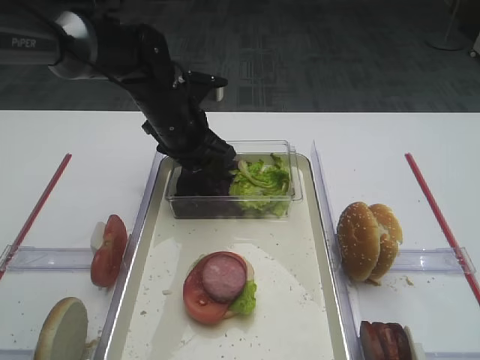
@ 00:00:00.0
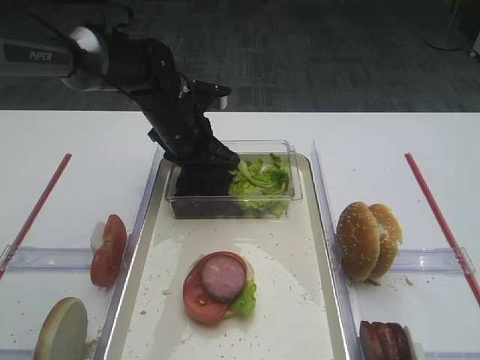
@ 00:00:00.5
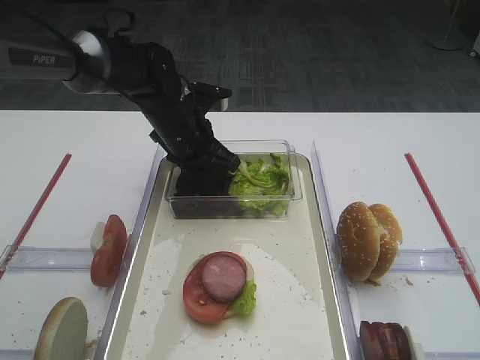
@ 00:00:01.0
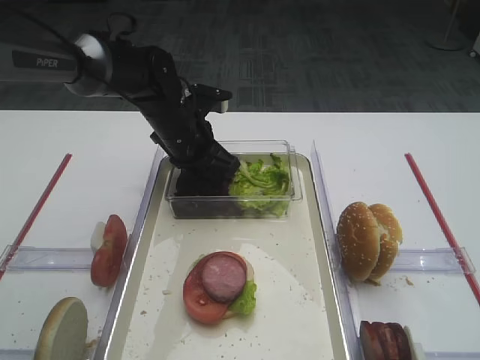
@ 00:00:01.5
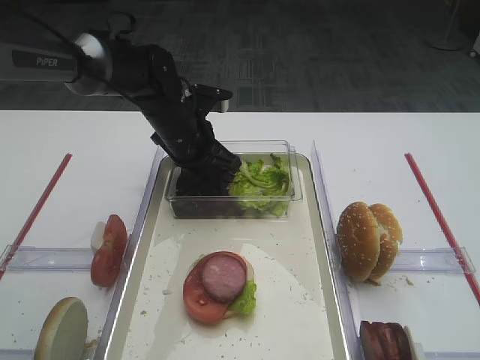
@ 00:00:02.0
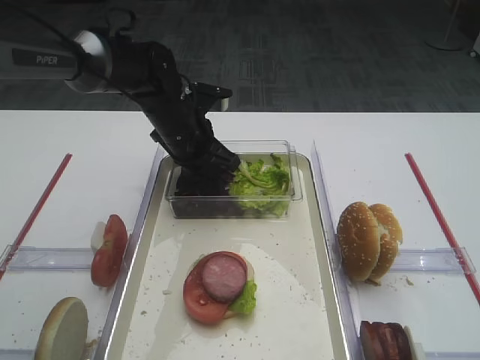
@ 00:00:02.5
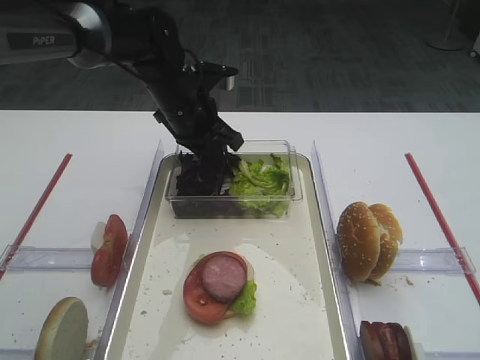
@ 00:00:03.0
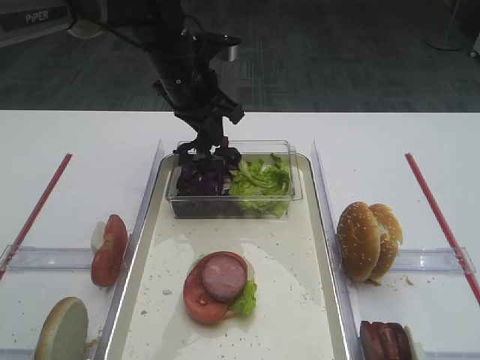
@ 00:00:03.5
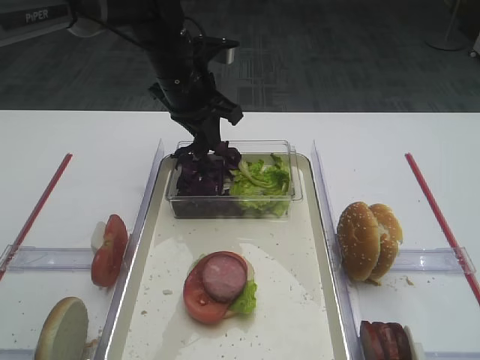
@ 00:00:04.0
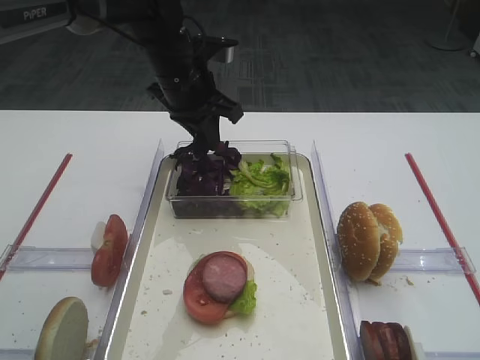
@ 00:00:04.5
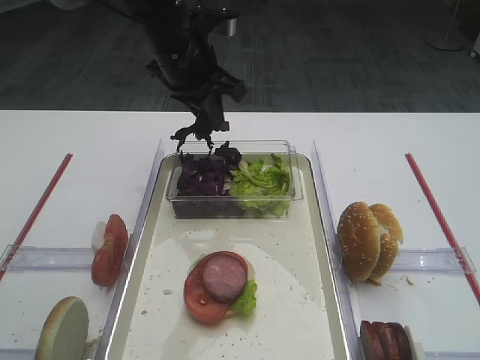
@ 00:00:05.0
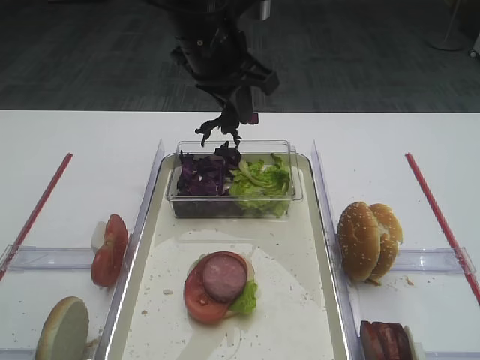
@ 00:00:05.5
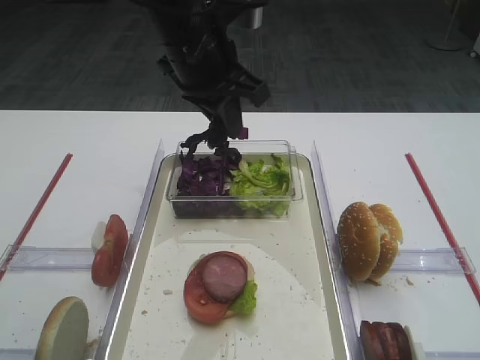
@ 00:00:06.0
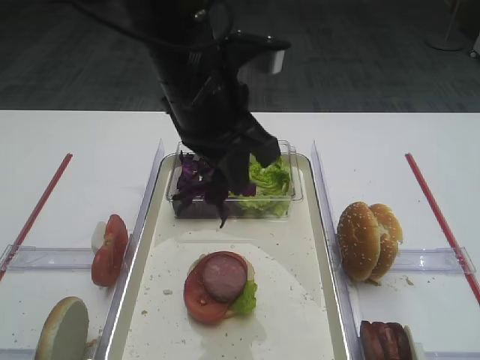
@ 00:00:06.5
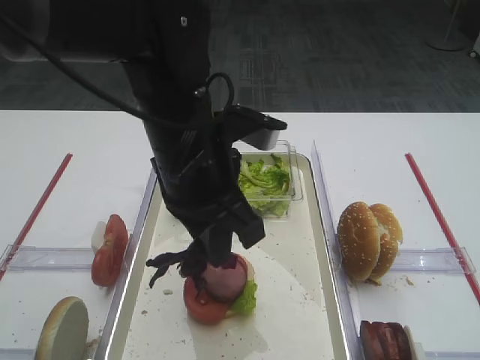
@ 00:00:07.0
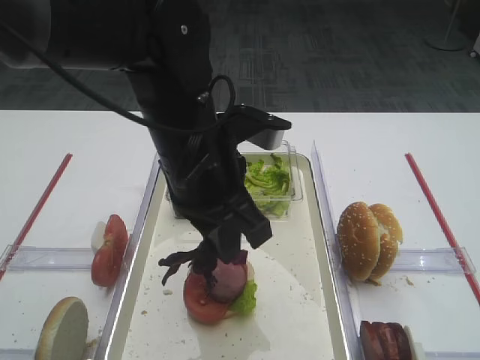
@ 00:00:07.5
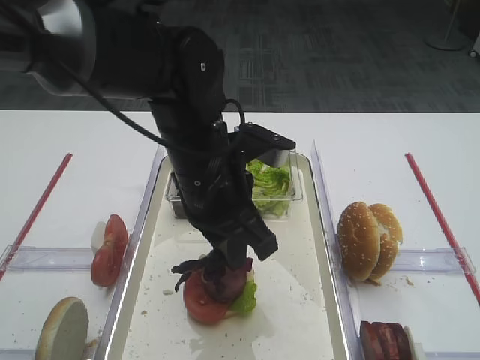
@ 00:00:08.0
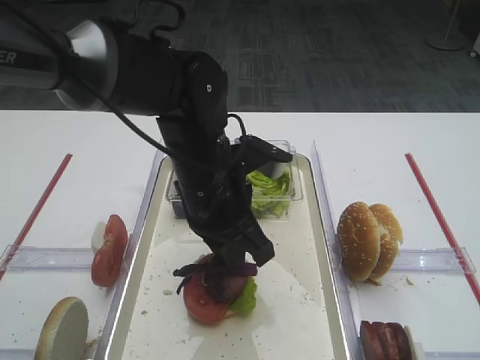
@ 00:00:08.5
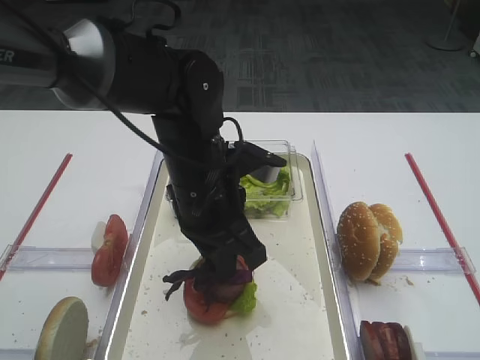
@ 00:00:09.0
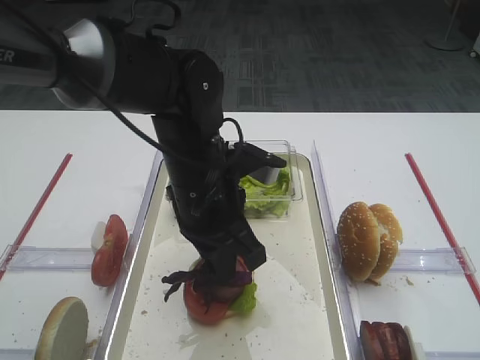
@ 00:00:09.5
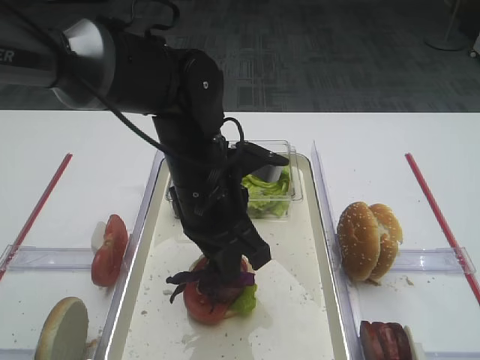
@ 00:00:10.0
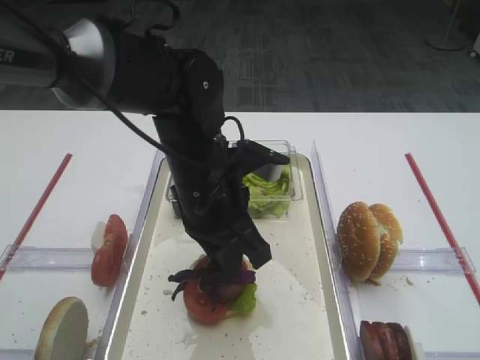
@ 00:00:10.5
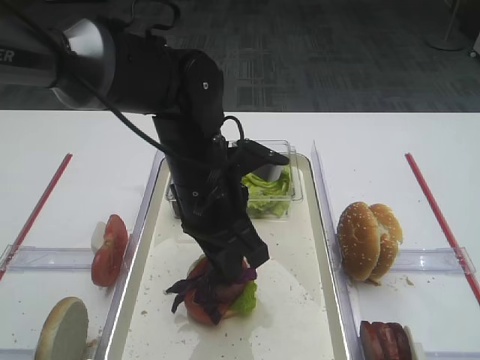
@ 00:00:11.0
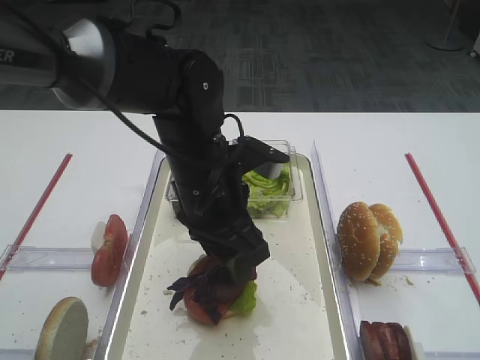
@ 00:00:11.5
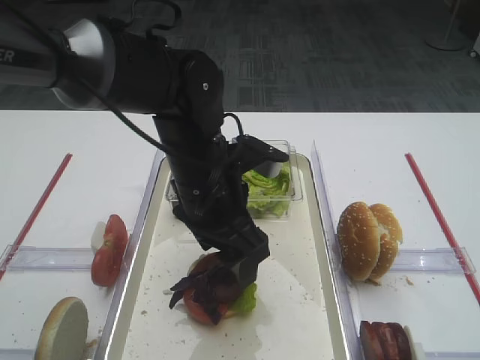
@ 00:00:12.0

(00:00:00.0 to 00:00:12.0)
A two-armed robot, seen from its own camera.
Step, 00:00:00.0 - 00:00:03.5: Pick up the purple cabbage with the left gripper.
00:00:00.0 - 00:00:02.0: The left gripper closes.
00:00:02.0 - 00:00:04.0: The left gripper heads upward, covering roughly 10 cm.
00:00:04.0 - 00:00:06.0: The left gripper heads backward and upward, covering approximately 10 cm.
00:00:06.0 - 00:00:08.0: The left gripper is displaced backward and downward by some 15 cm.
00:00:08.0 - 00:00:10.0: The grippers stay close to where they were, moving slightly.
00:00:10.0 - 00:00:12.0: The left gripper opens.

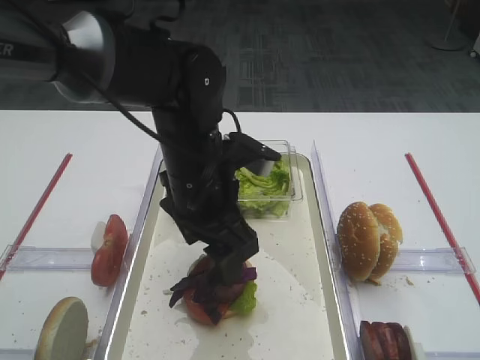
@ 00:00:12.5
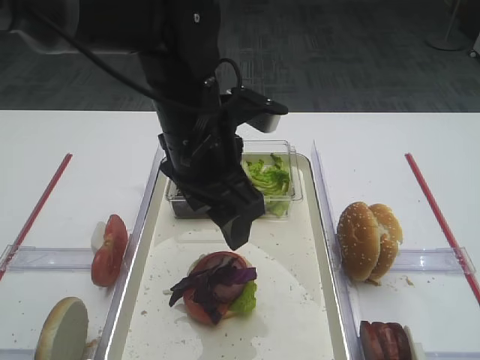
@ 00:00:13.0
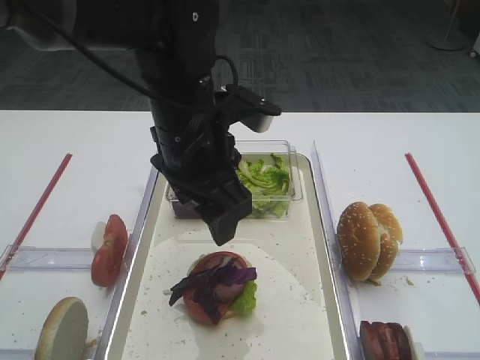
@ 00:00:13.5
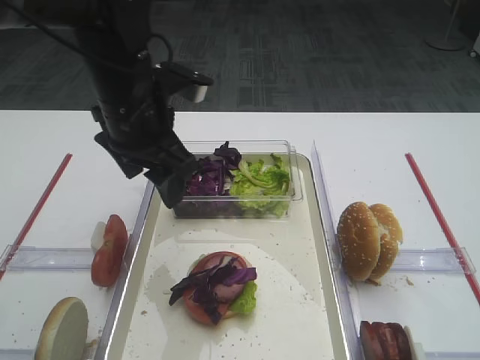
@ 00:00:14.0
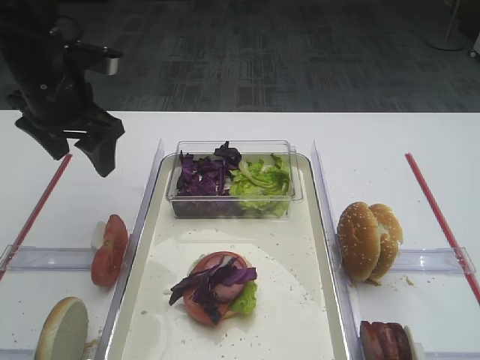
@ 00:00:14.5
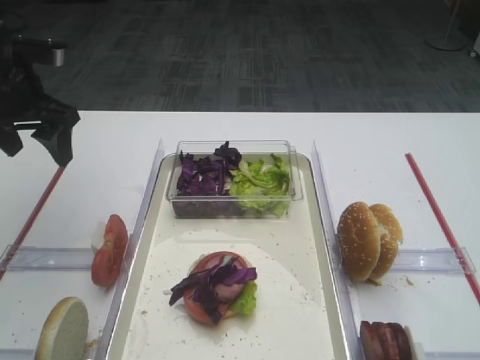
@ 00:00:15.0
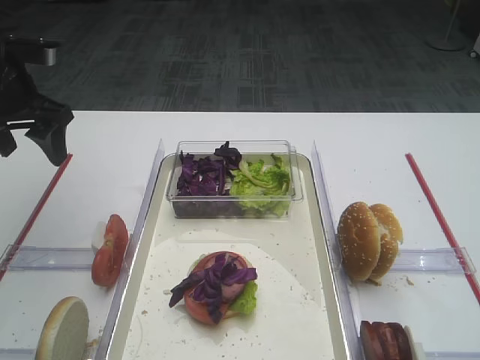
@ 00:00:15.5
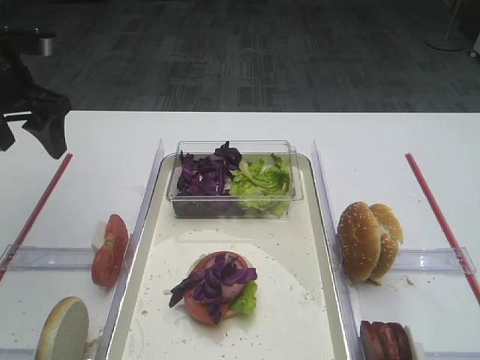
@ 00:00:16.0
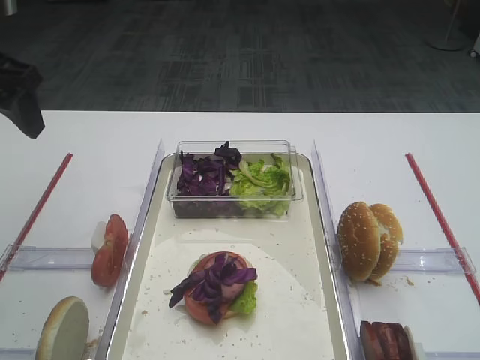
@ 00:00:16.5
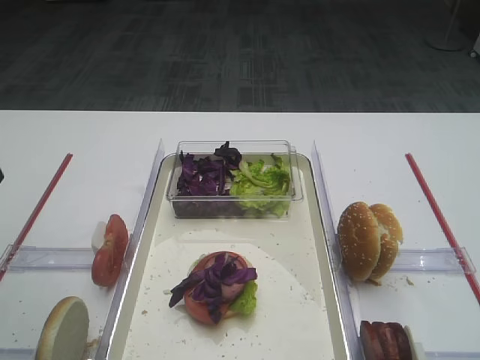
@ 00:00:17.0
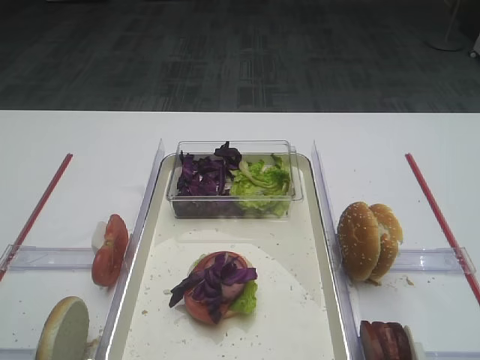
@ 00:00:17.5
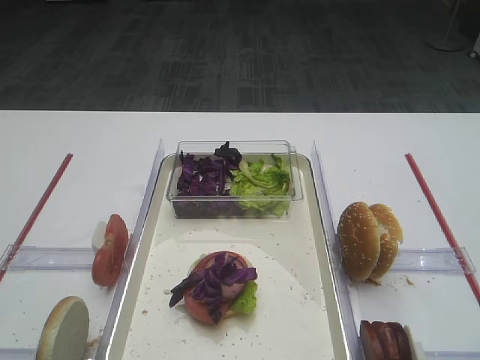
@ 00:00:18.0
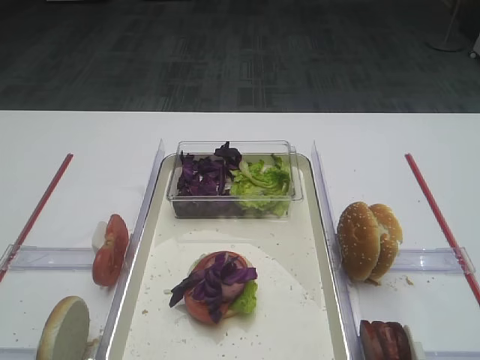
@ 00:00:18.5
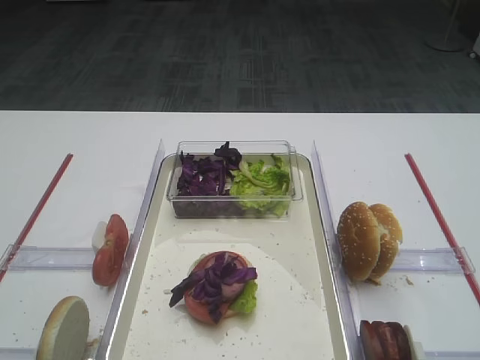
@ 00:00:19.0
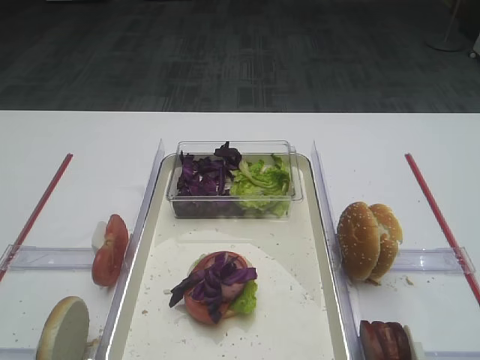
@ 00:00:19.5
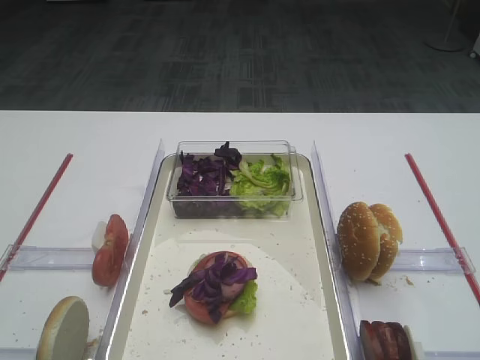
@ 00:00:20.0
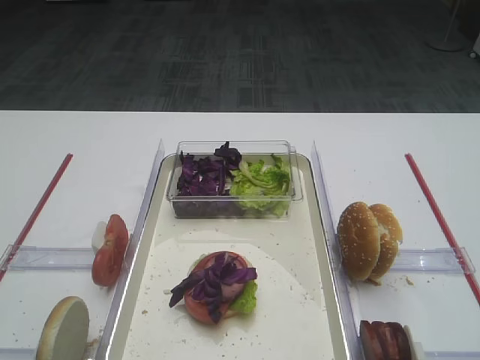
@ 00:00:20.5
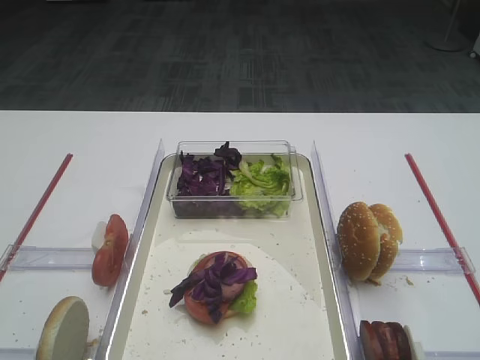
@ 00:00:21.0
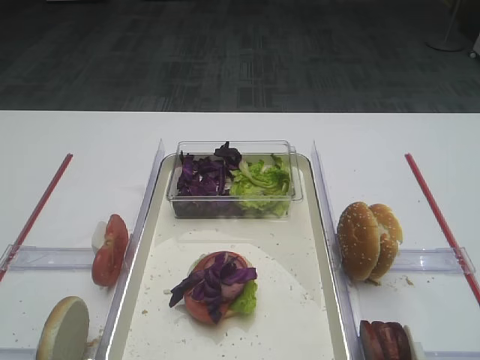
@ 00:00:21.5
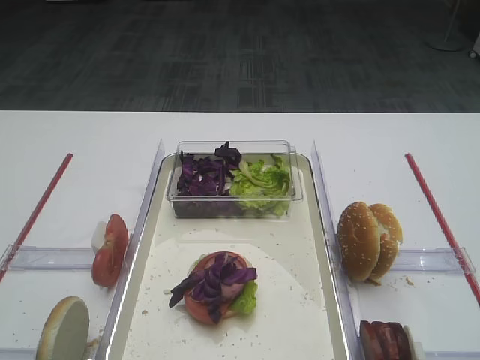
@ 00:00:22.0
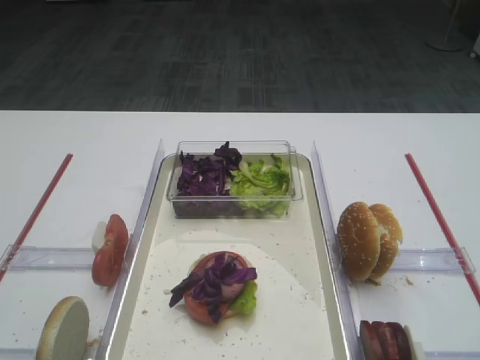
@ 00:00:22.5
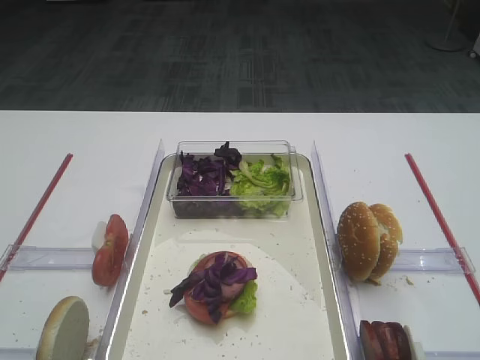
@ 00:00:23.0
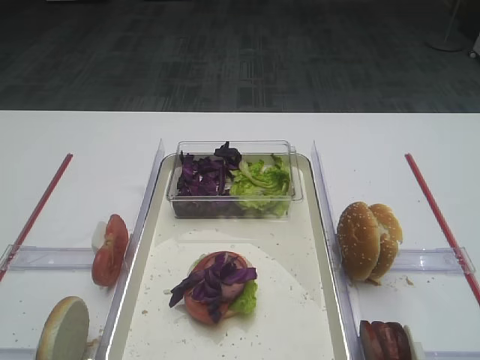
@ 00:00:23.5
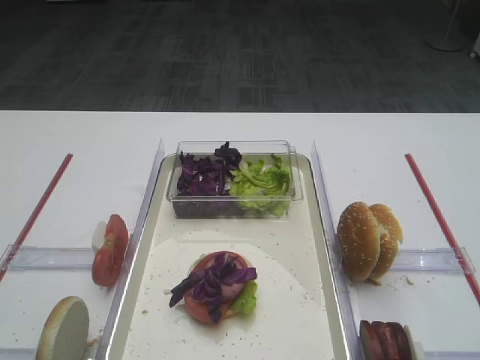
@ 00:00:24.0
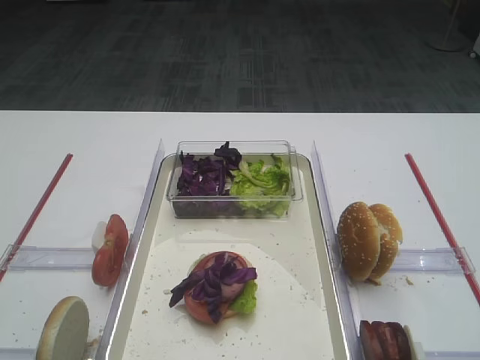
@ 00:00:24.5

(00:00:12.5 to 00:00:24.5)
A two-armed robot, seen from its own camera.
00:00:12.5 - 00:00:14.5: The left gripper goes approximately 20 cm to the left and forward.
00:00:14.5 - 00:00:16.5: The left gripper shifts approximately 10 cm to the left and upward.
00:00:16.5 - 00:00:18.5: The left gripper travels backward by about 35 cm.
00:00:20.5 - 00:00:24.5: The two grippers keep their place.

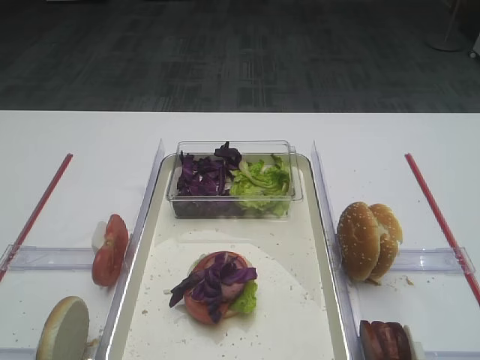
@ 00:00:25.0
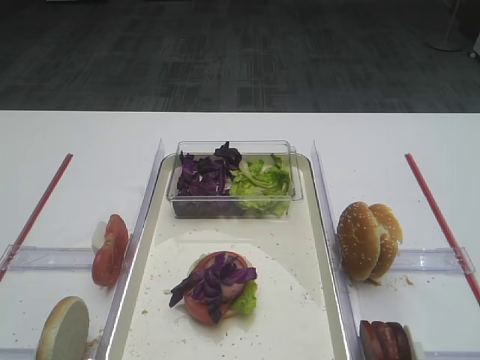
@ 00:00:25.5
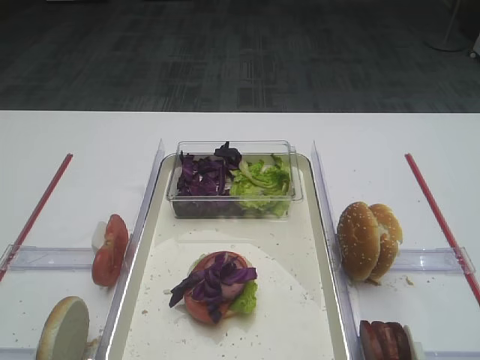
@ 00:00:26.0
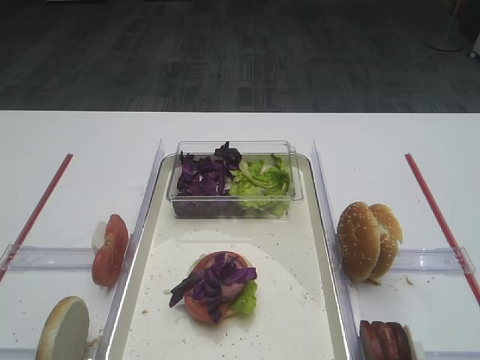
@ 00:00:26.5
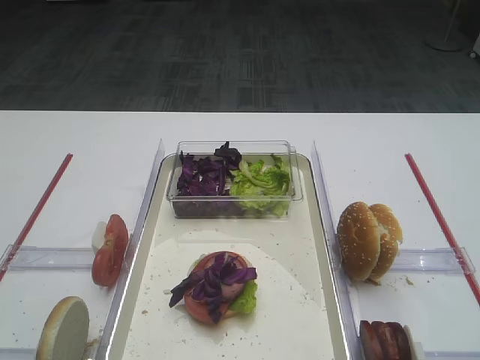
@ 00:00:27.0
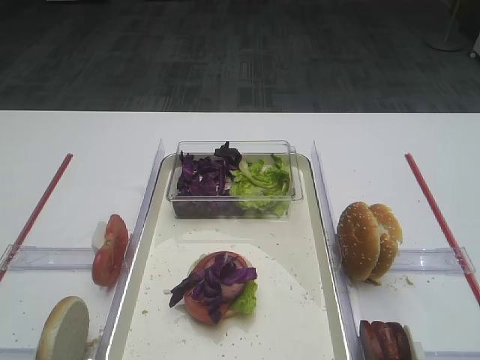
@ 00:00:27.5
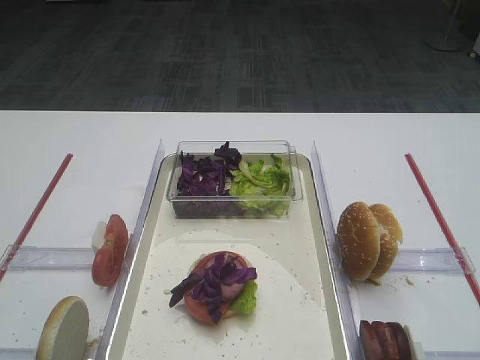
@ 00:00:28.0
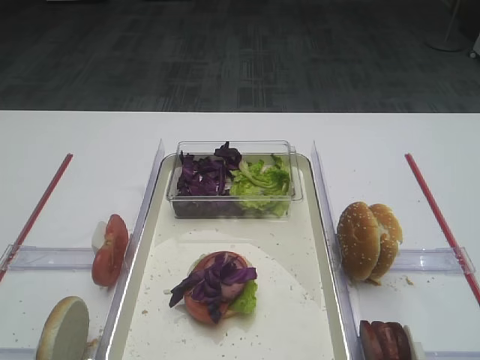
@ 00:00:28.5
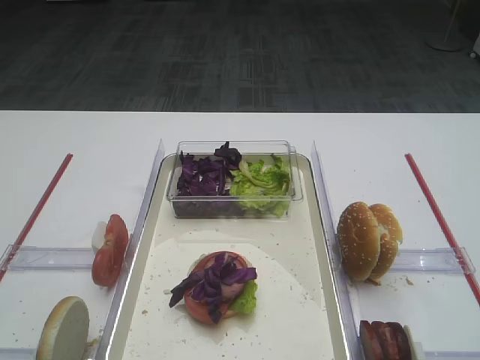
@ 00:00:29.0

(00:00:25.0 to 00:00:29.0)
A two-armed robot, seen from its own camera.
00:00:25.0 - 00:00:29.0: Neither gripper changes place.
